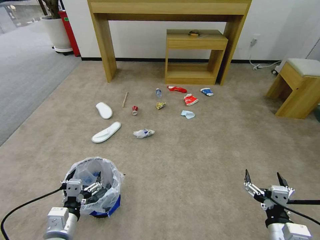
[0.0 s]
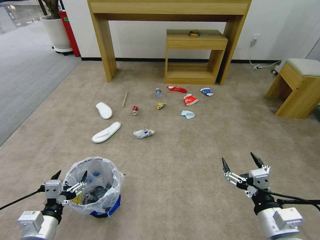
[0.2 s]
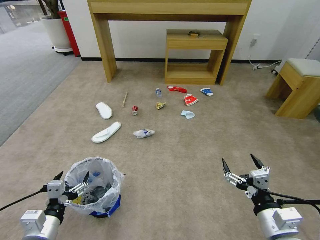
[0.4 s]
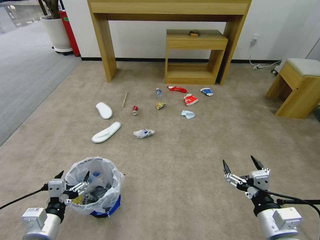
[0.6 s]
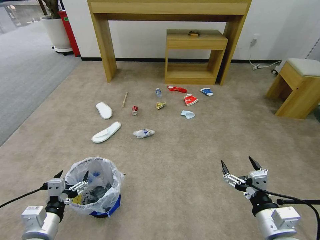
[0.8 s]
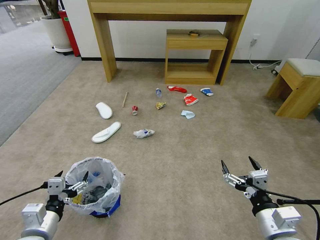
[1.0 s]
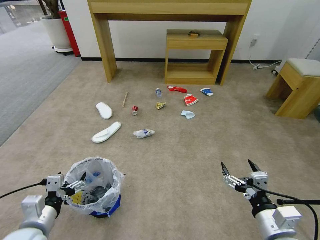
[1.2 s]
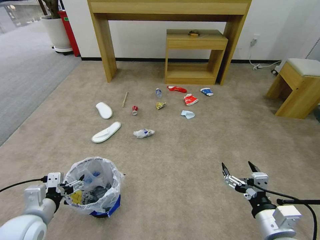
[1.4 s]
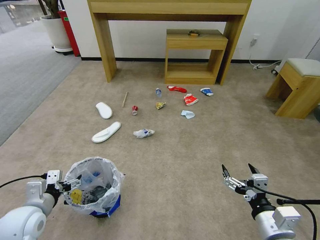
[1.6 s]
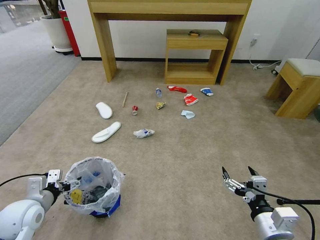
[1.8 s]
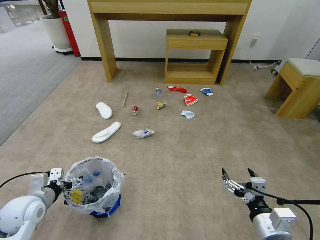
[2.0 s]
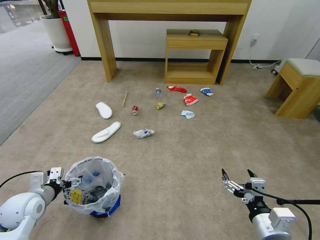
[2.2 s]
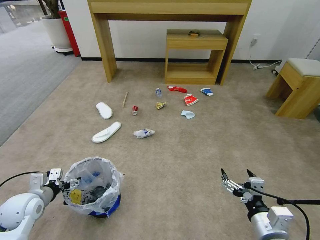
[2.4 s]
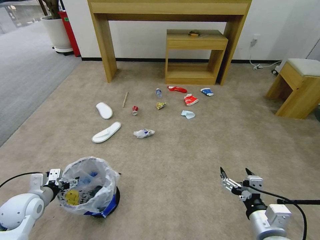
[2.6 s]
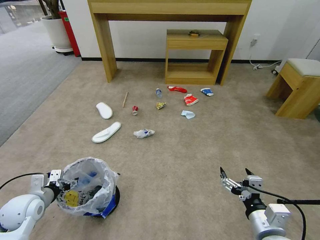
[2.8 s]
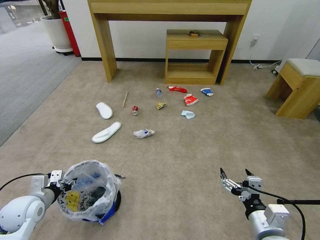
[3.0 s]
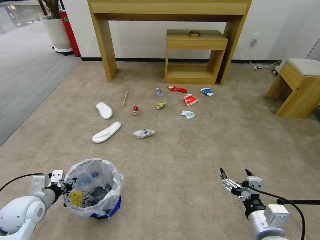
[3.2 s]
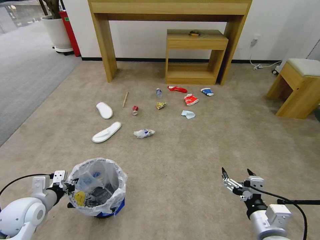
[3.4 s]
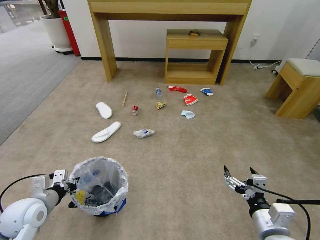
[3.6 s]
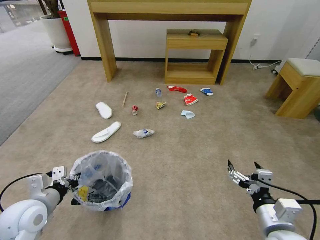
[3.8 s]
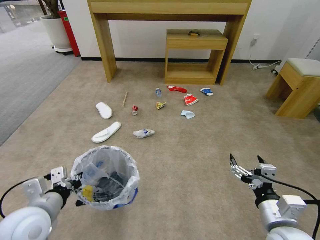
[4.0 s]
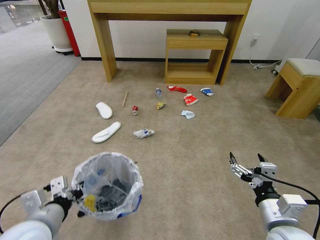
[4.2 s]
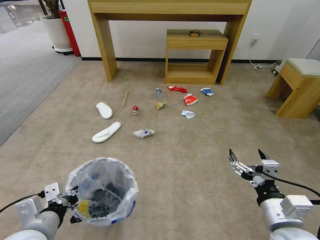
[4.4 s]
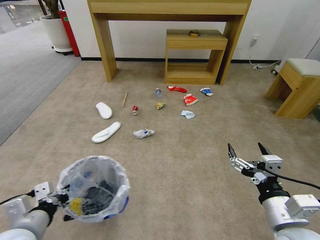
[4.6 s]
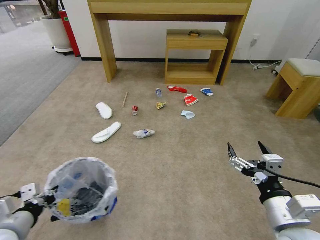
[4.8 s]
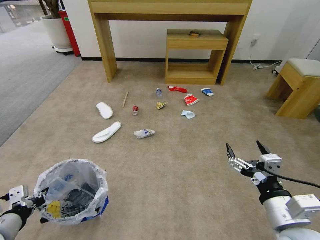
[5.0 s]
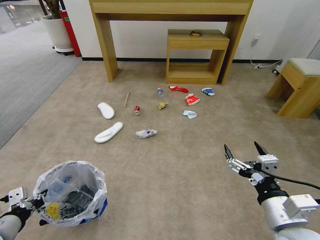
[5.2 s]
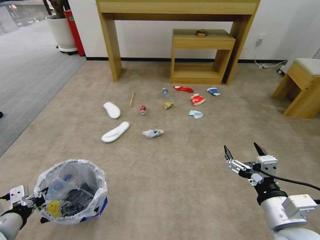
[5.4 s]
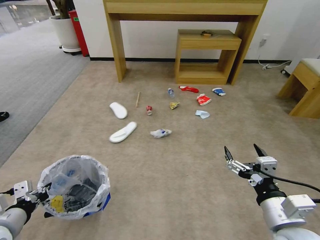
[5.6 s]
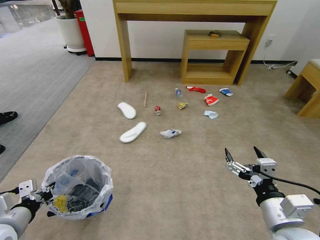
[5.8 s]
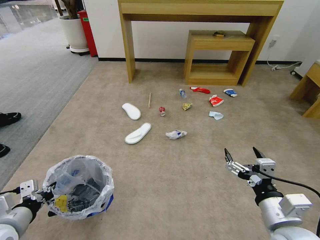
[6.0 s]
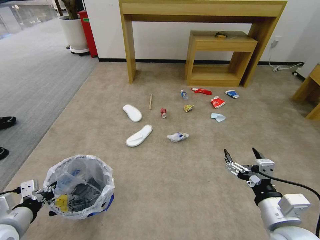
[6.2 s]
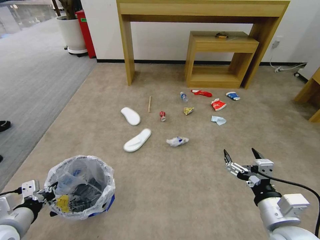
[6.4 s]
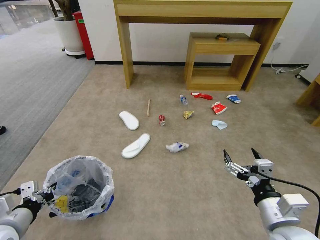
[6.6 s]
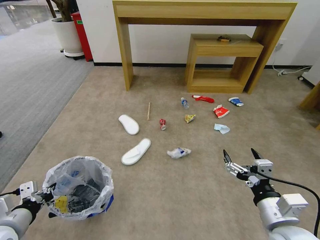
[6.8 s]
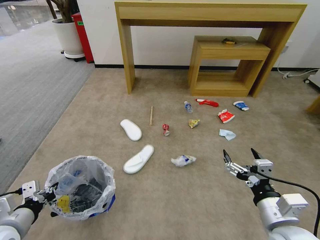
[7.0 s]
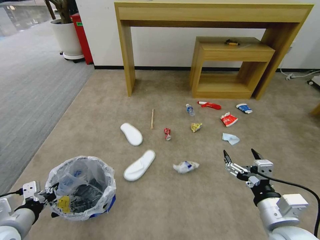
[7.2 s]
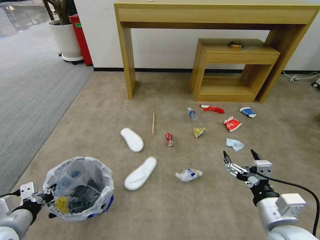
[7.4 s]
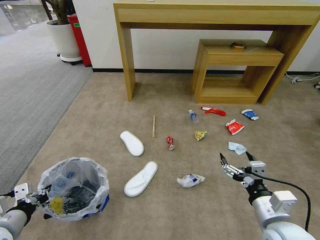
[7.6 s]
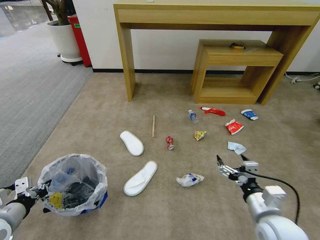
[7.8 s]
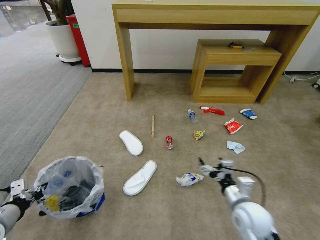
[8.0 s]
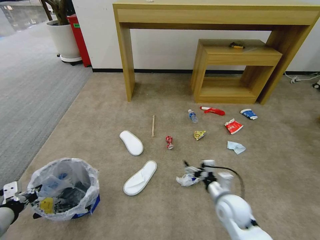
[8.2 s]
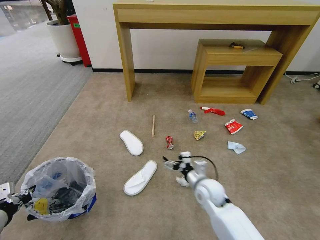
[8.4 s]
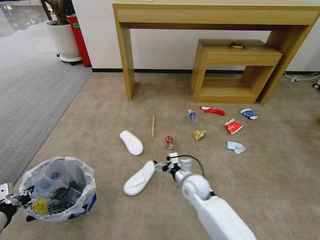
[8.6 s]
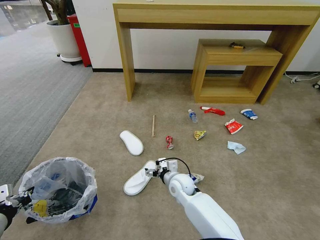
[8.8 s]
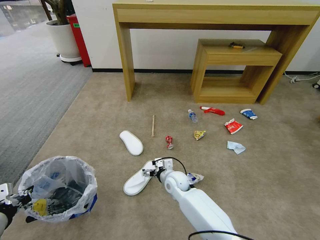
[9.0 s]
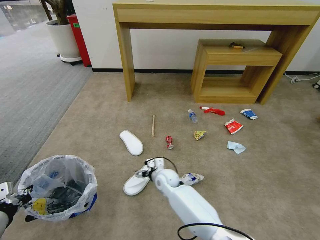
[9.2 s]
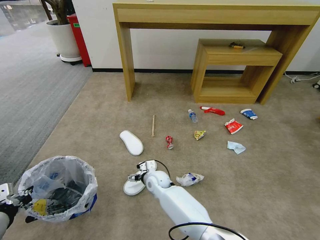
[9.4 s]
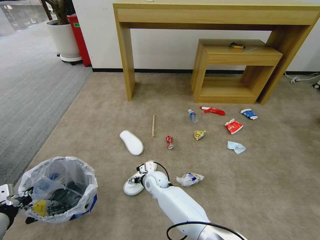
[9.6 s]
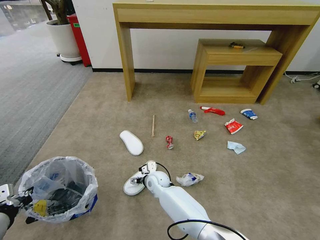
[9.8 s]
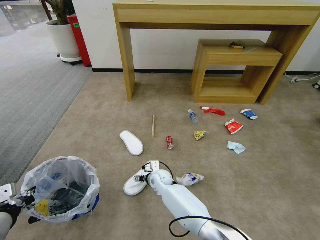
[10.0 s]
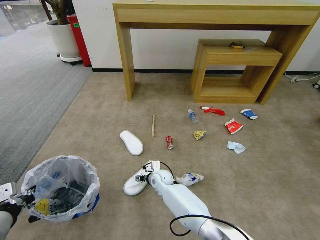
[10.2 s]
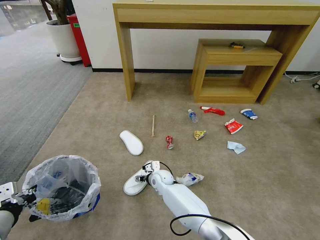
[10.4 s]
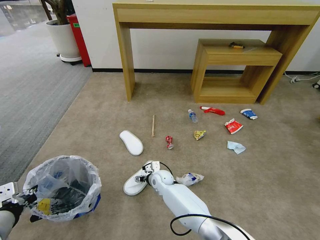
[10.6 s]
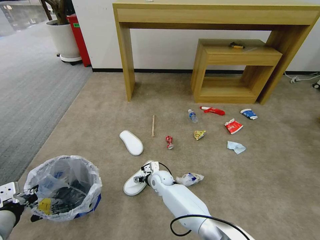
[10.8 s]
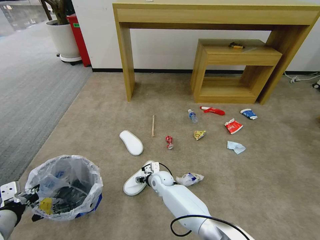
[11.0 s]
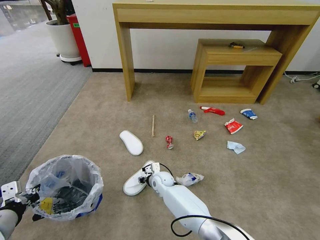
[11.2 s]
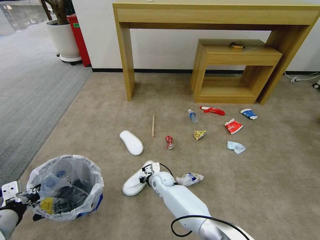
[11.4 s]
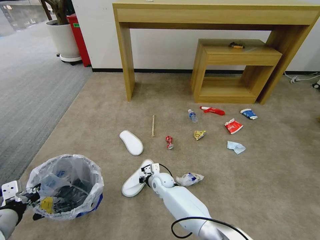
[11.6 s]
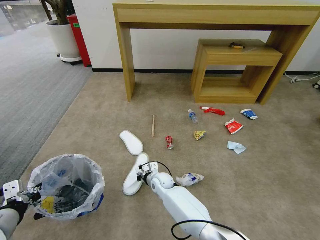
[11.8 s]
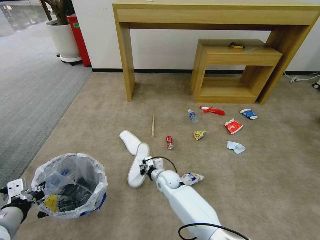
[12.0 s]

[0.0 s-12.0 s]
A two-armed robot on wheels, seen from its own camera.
Task of the whole recording: Pick up the trash bin and place the garbage on the floor into it.
1.6 to 3.0 s: The left gripper moves about 5 cm, and closes its fingers.
3.0 to 4.4 s: The left gripper moves to the right, backward and upward, roughly 20 cm. The right gripper heads upward, covering roughly 5 cm.
4.4 to 6.0 s: The left gripper shifts some 10 cm to the left.
7.6 to 9.0 s: The right gripper is displaced to the left, forward and downward by roughly 35 cm.
9.0 to 10.4 s: The right gripper shifts roughly 5 cm to the left.
10.4 to 12.0 s: The right gripper closes.

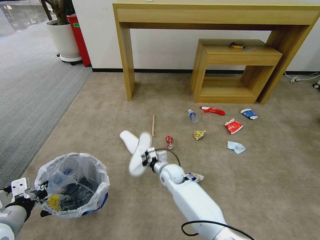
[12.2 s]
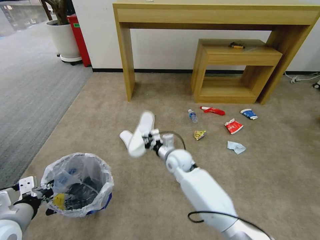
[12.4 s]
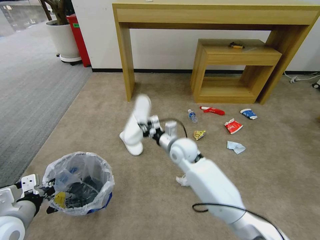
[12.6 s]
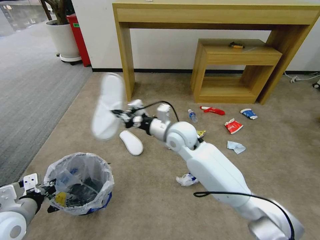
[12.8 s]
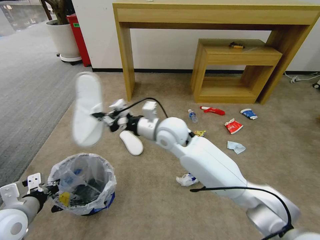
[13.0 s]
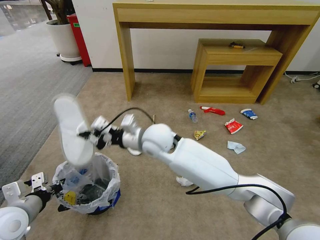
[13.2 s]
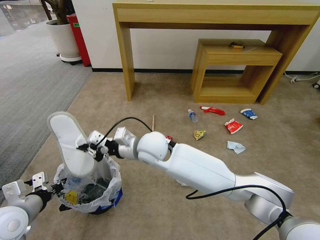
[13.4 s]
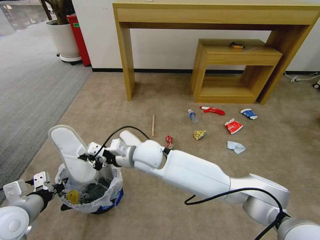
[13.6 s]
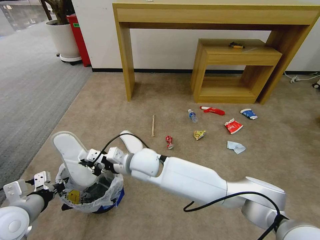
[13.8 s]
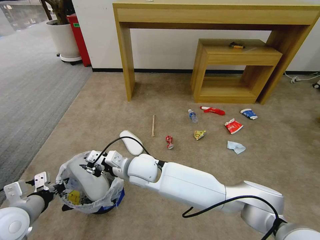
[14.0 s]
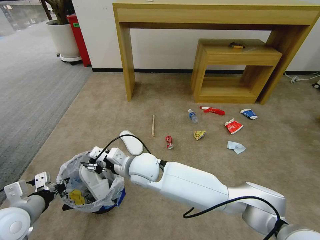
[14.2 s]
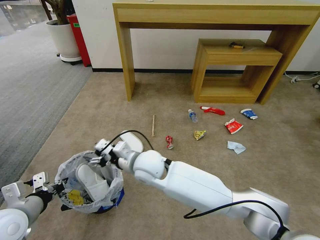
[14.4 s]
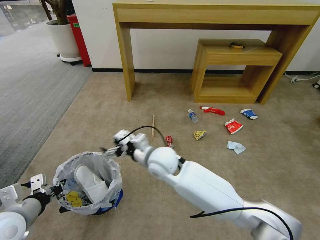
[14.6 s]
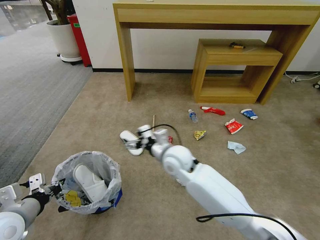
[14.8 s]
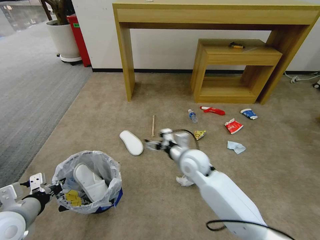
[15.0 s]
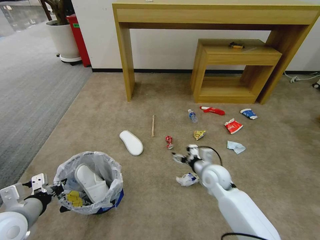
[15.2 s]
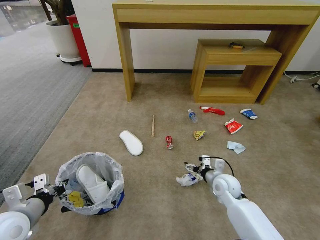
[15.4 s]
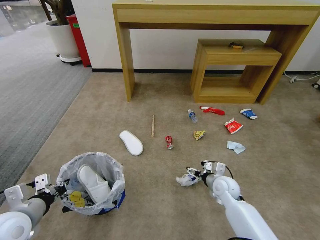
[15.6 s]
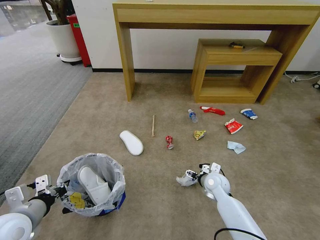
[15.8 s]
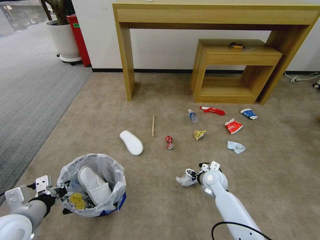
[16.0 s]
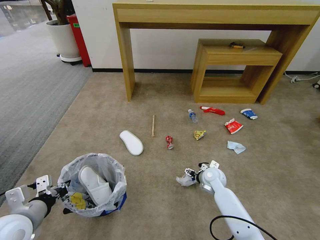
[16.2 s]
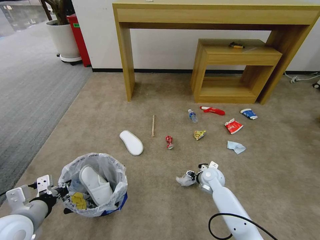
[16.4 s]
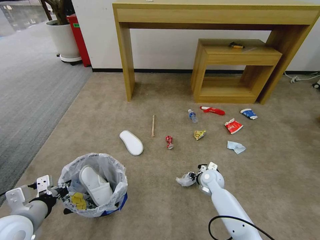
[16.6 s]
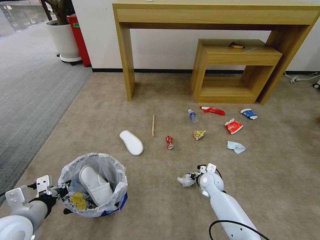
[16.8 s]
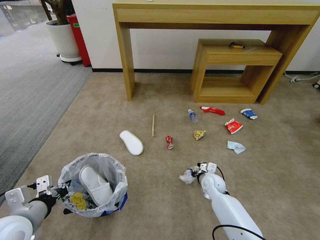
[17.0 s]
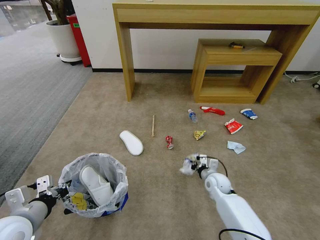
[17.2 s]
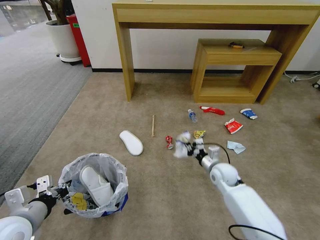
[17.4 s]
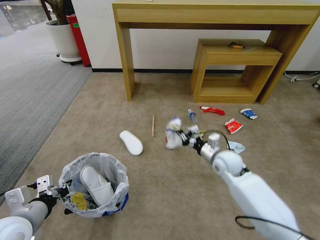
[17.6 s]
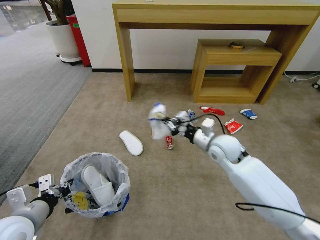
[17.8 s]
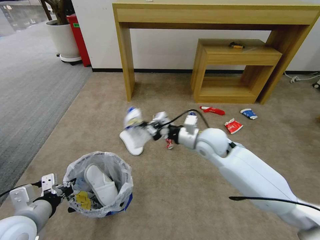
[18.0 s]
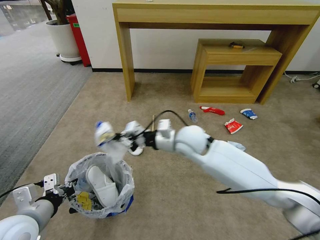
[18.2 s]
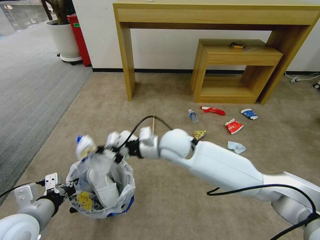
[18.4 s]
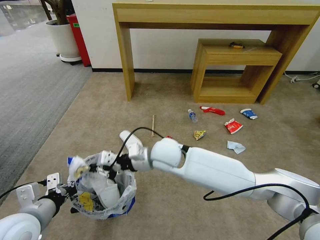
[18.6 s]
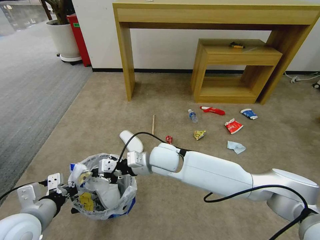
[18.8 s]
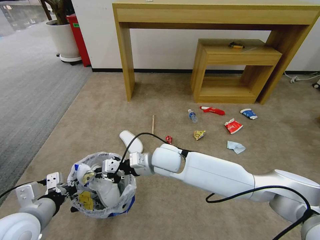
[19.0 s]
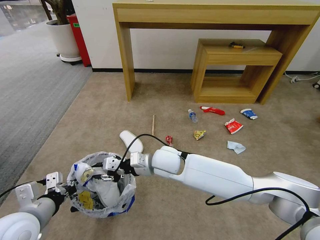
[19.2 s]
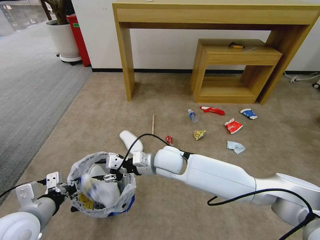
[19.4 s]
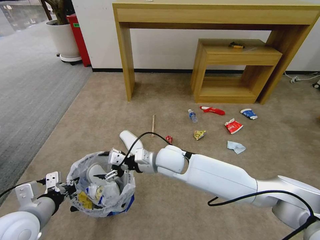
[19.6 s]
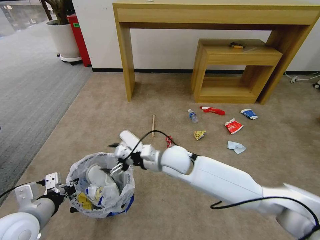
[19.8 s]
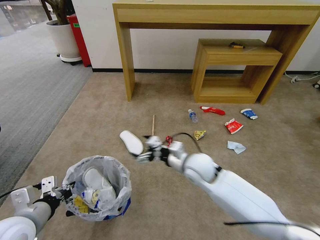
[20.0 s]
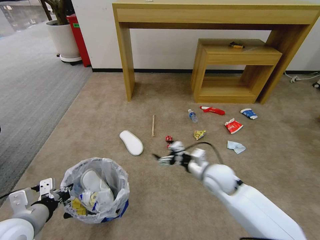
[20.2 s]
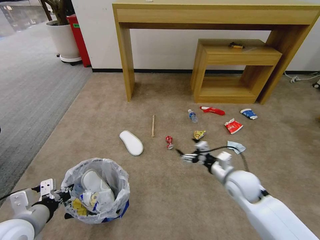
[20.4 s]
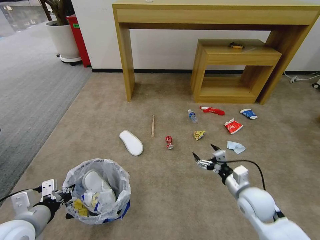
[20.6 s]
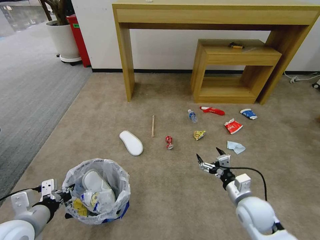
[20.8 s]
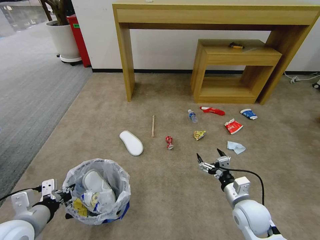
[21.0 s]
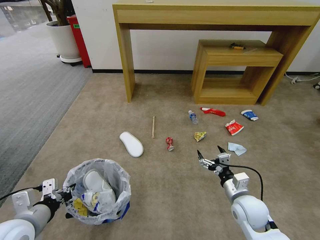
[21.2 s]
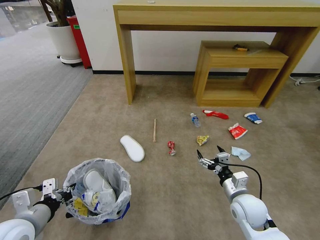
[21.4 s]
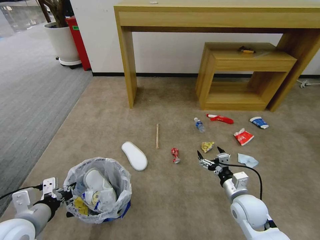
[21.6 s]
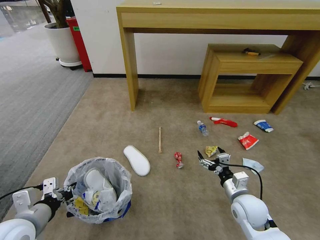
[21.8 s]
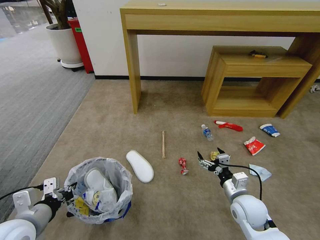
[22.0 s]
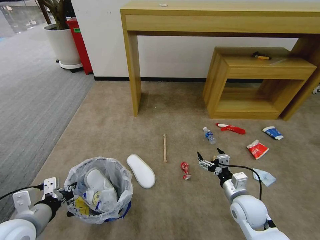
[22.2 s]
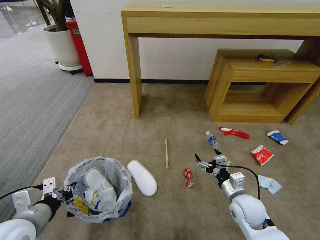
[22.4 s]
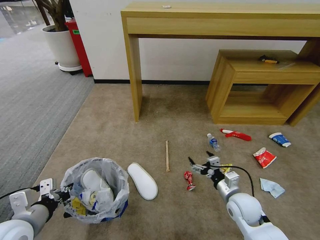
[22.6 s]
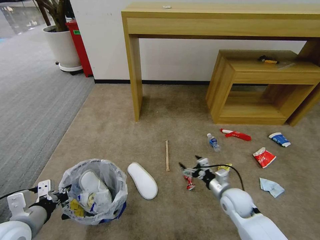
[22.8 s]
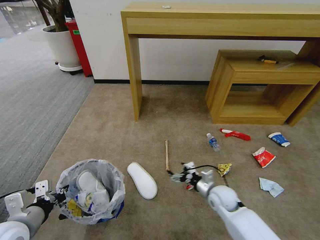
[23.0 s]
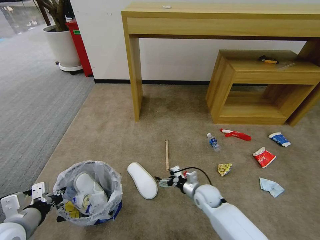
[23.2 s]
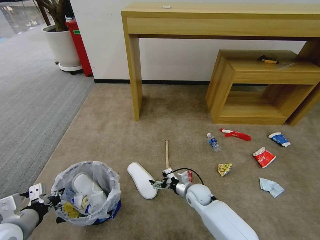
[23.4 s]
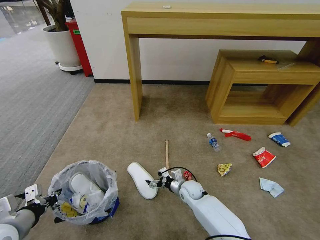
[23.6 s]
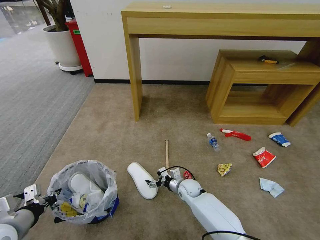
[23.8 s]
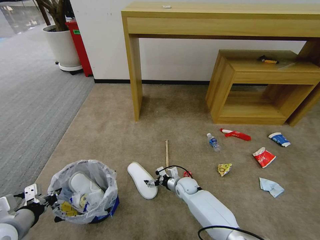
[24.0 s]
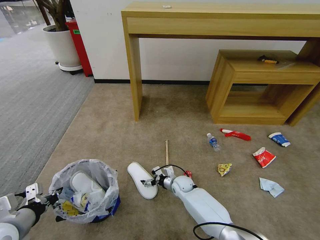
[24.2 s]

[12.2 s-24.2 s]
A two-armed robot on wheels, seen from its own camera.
Task of the whole recording: Pick up the trash bin and place the garbage on the floor into it.
12.2 to 13.8 s: The right gripper is displaced upward and to the left by about 20 cm.
13.8 to 15.2 s: The right gripper shifts roughly 25 cm to the right, and opens.
15.2 to 16.6 s: The right gripper heads downward, covering some 10 cm, and closes its fingers.
16.6 to 18.2 s: The right gripper is displaced upward and to the left by about 30 cm, and closes its fingers.
18.2 to 19.8 s: The right gripper is displaced downward by roughly 5 cm, and opens its fingers.
19.8 to 21.2 s: The right gripper travels to the right, backward and downward by some 30 cm.
22.6 to 24.2 s: The right gripper goes approximately 25 cm to the left, downward and forward.
